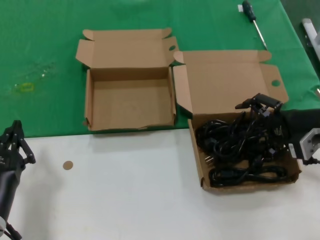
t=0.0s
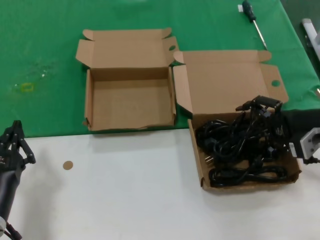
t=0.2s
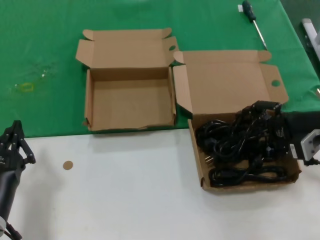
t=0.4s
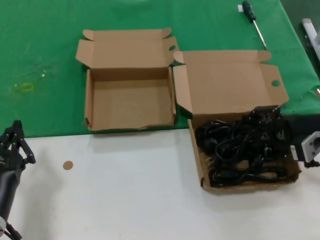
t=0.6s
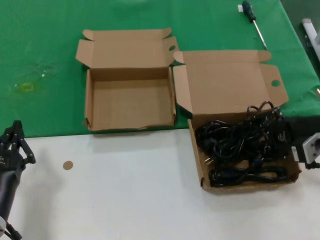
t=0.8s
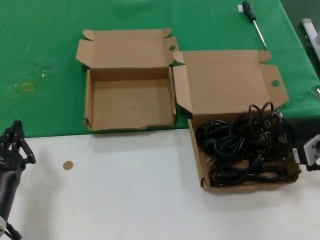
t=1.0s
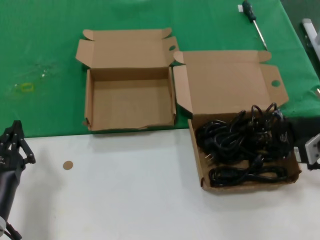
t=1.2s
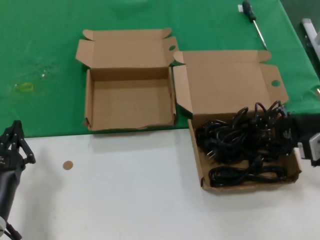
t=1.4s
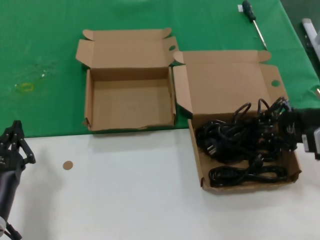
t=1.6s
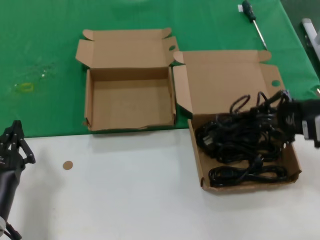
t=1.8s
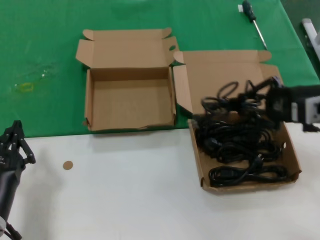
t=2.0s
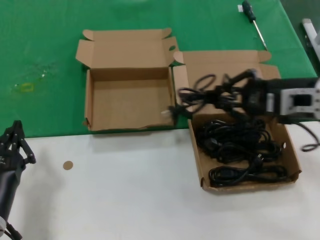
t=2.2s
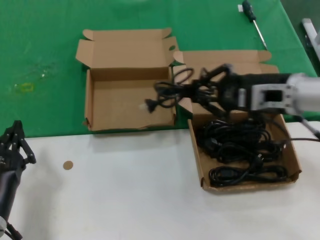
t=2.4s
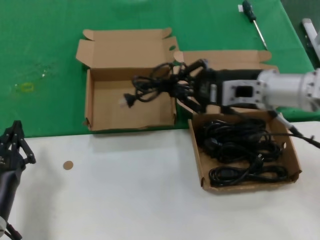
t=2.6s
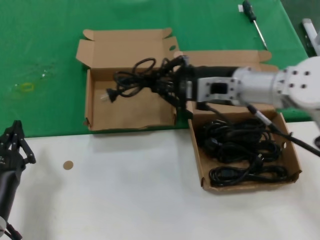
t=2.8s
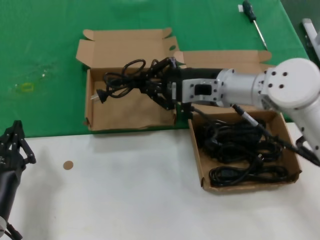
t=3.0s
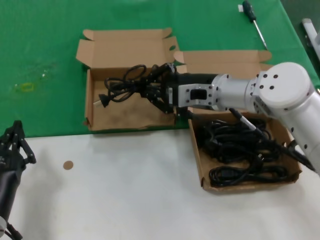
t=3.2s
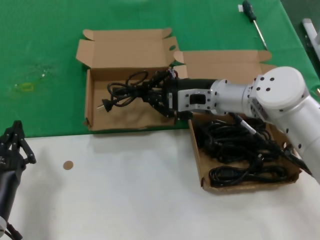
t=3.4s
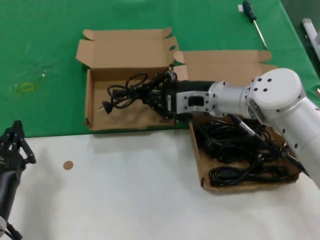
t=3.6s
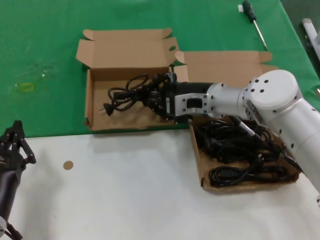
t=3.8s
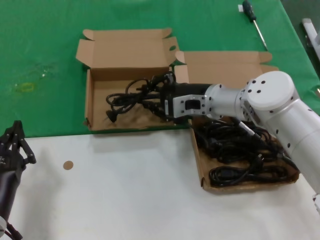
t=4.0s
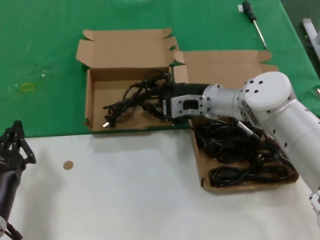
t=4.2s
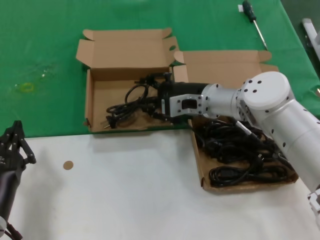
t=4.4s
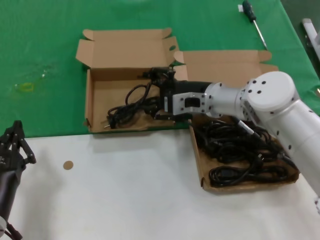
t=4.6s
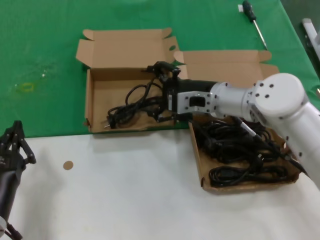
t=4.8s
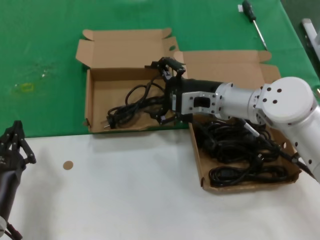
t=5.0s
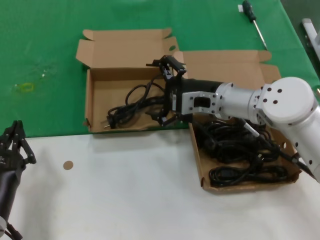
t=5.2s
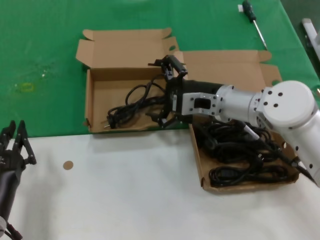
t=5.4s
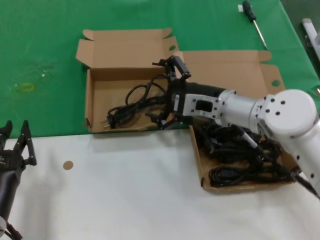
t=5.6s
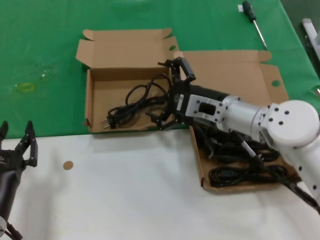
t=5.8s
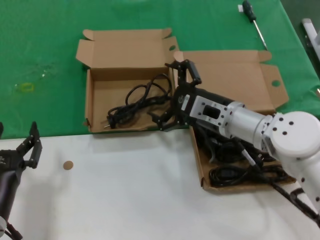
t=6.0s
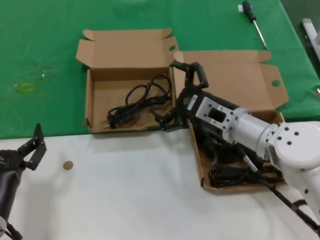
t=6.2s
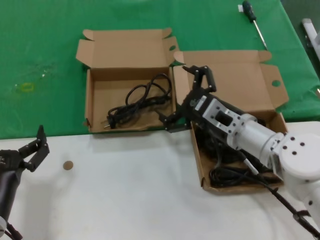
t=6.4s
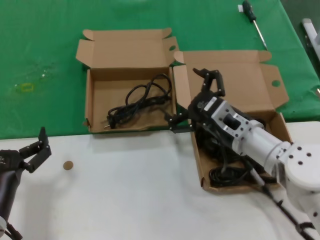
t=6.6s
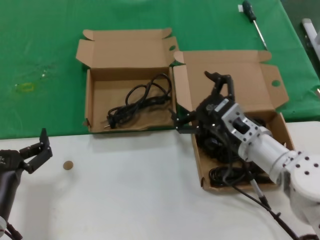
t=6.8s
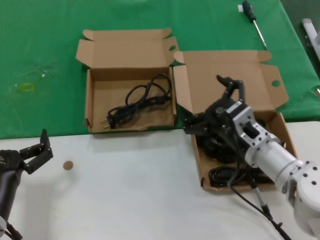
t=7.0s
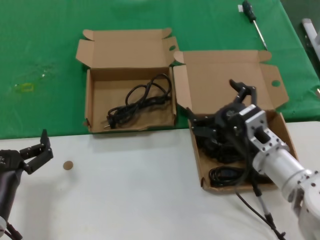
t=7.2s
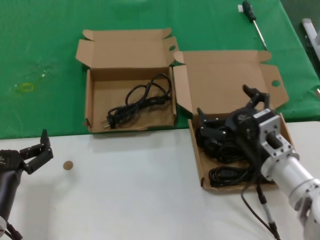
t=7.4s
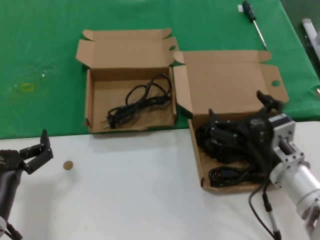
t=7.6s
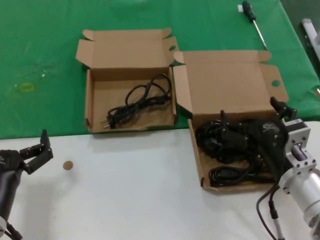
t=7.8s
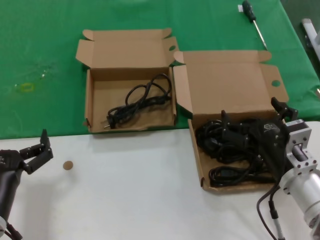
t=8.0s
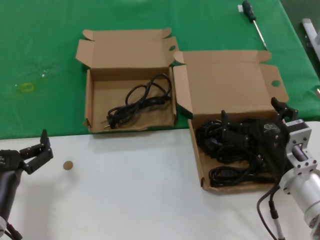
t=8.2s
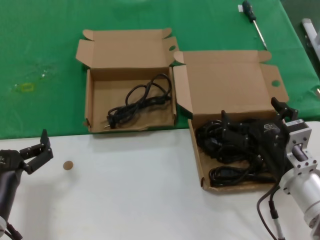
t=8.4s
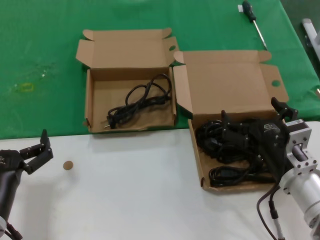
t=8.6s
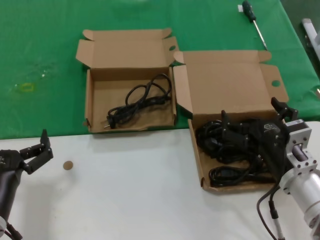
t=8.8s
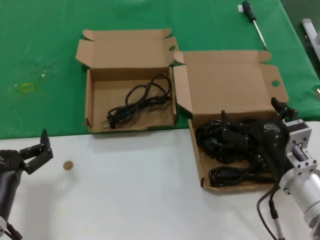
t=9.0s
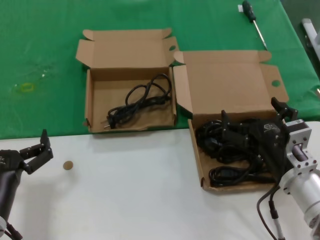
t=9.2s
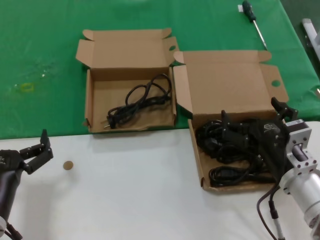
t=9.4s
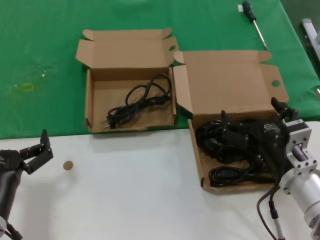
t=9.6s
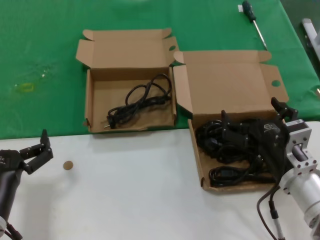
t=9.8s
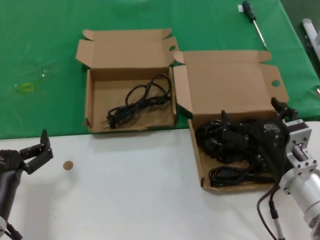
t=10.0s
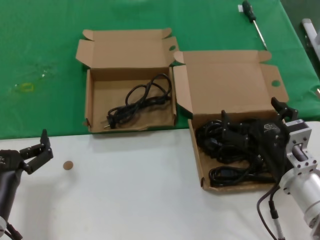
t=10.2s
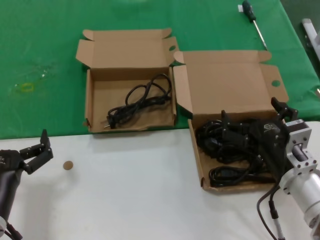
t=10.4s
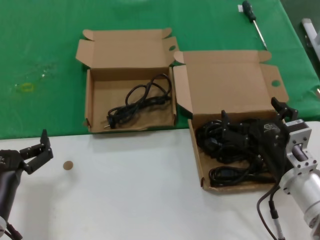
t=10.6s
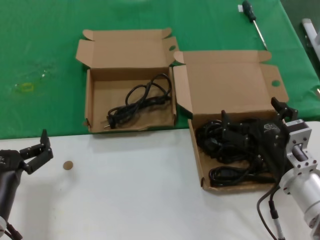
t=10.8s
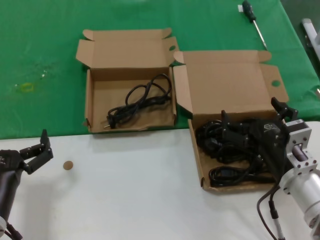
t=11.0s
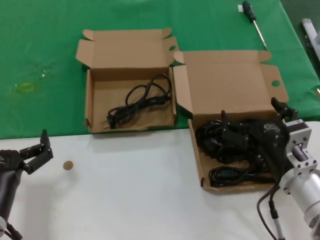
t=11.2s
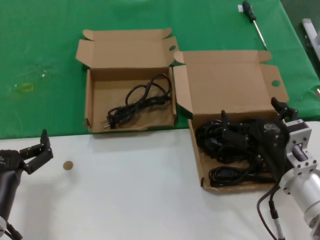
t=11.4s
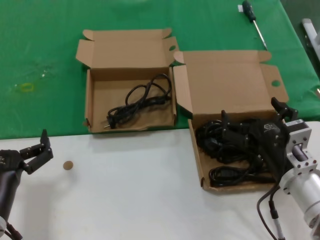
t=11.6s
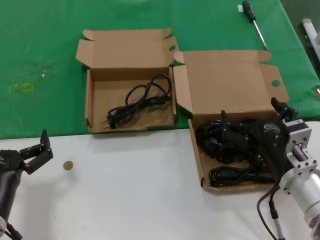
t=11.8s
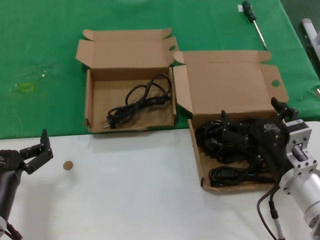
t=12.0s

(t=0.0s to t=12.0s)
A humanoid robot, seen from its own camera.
Task of the whole recording: take the parts from the box containing them and put them into an empty box.
Step, t=1.4s - t=4.4s: Place the data cable in the another box.
t=0.0s - t=1.6s: There are only small adjustments of the hands.
t=1.6s - t=3.0s: The right hand is displaced to the left and forward by about 25 cm.
t=3.0s - t=4.4s: The right hand heads downward, covering about 5 cm.
t=4.4s - t=6.0s: The right hand shifts about 5 cm backward.
t=6.0s - t=7.6s: The right hand goes approximately 15 cm backward, downward and to the right.
t=7.6s - t=9.0s: The hands make only small movements.
t=9.0s - t=12.0s: Neither hand changes place.

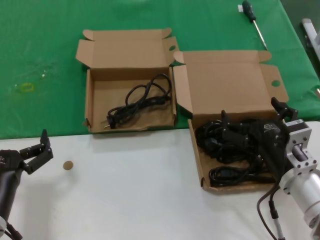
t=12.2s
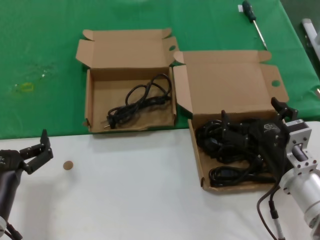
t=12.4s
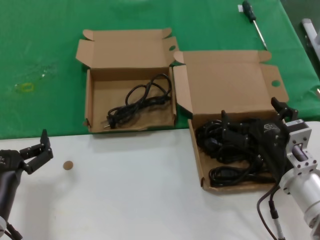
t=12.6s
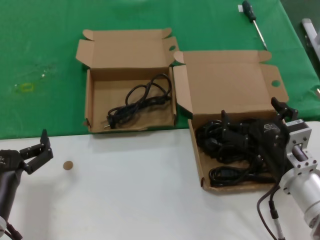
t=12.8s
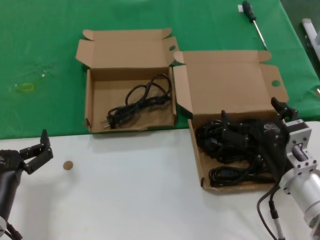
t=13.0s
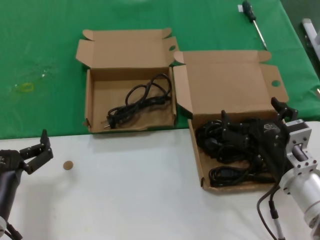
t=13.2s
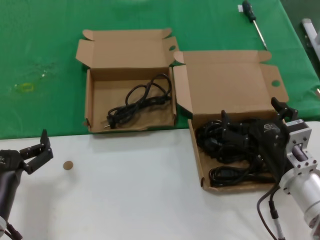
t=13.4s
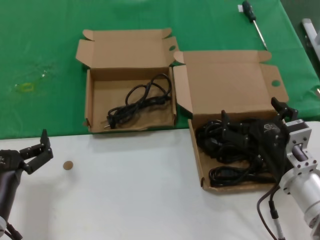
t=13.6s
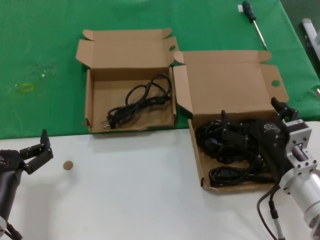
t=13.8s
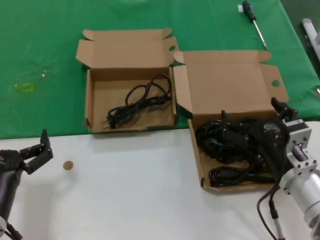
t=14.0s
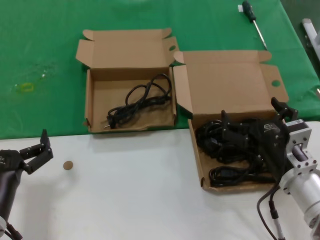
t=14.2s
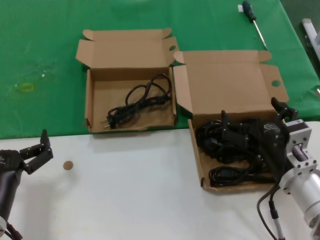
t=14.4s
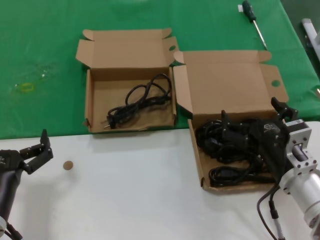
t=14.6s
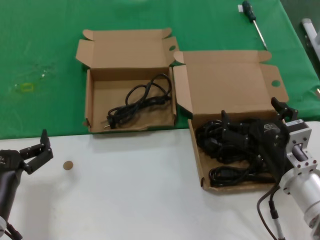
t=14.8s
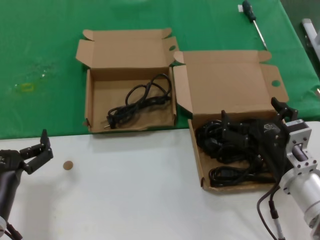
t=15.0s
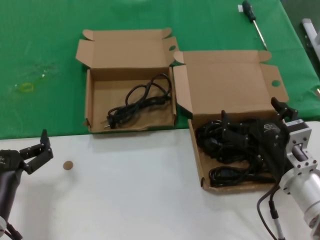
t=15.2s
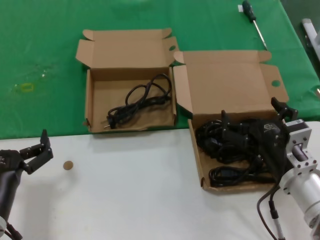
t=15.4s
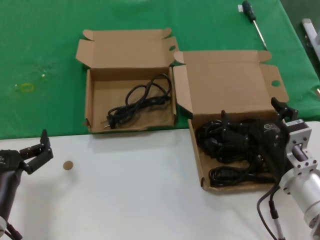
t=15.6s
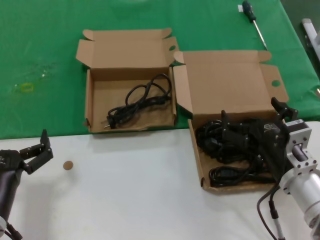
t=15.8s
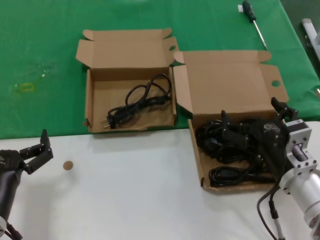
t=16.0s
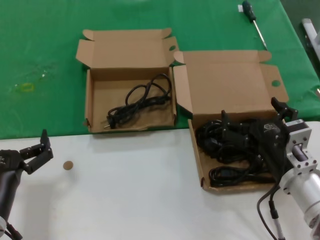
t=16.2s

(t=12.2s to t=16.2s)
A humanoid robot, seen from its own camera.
Task of the whole recording: take the parts from the box containing them and put them into an empty box.
t=12.2s - t=16.2s: Both hands stay put.

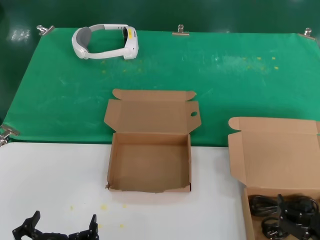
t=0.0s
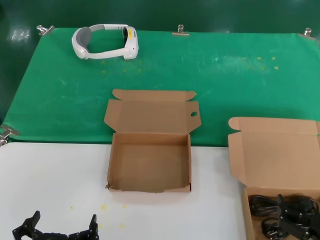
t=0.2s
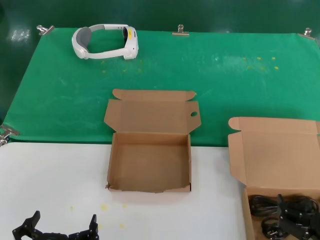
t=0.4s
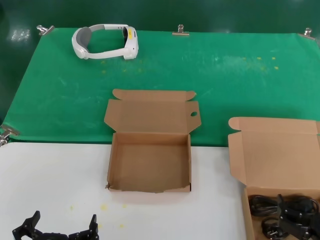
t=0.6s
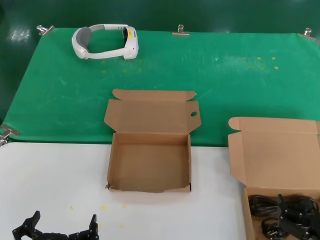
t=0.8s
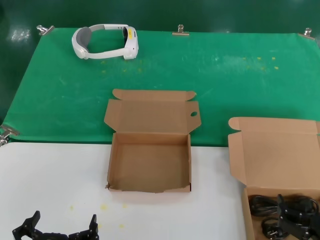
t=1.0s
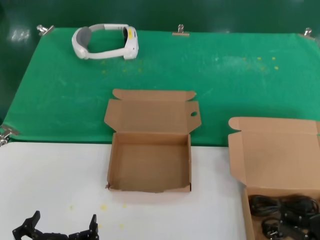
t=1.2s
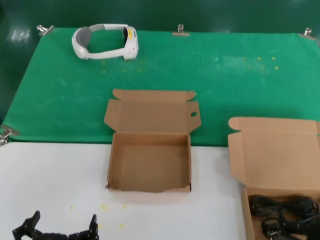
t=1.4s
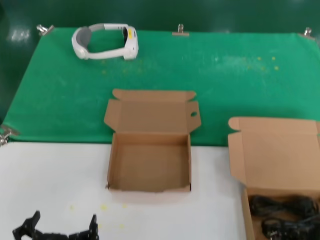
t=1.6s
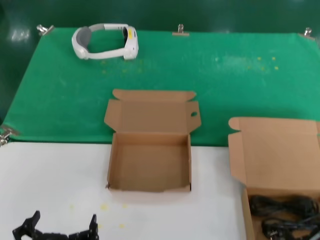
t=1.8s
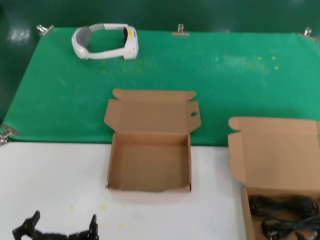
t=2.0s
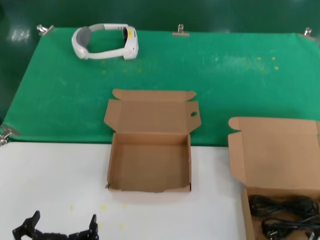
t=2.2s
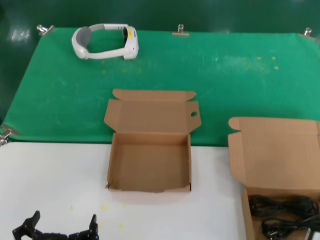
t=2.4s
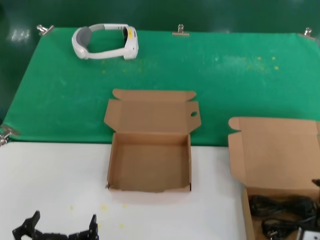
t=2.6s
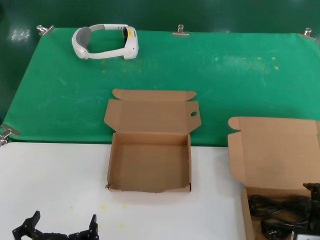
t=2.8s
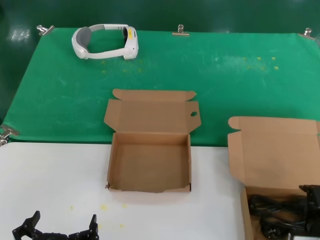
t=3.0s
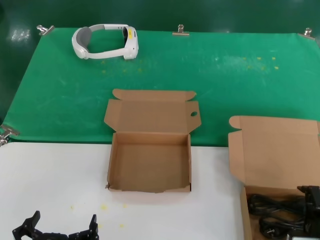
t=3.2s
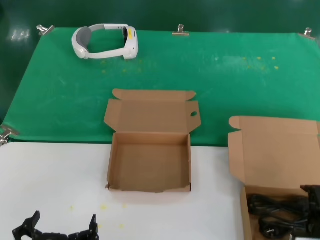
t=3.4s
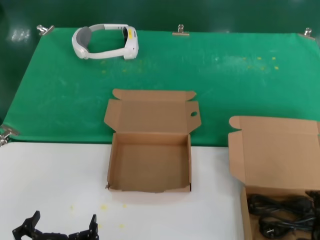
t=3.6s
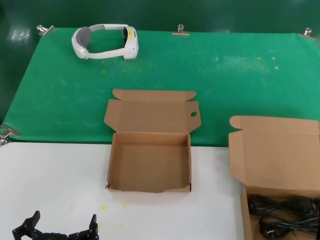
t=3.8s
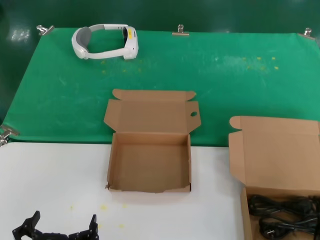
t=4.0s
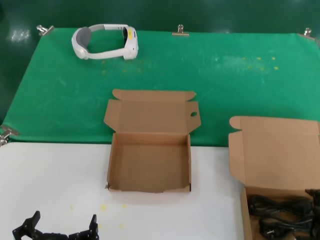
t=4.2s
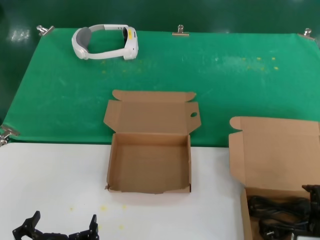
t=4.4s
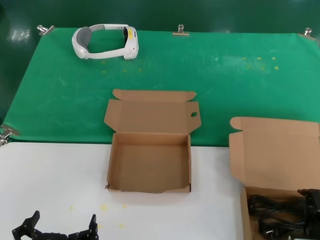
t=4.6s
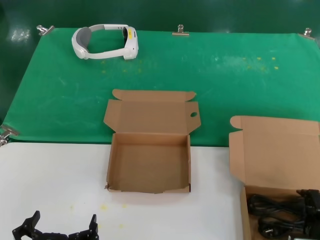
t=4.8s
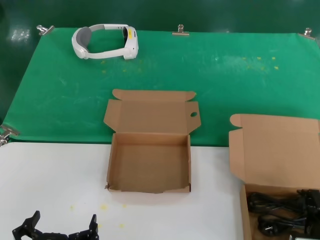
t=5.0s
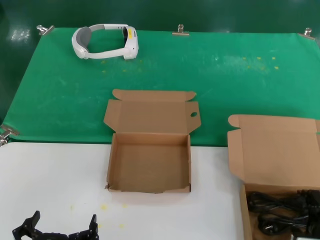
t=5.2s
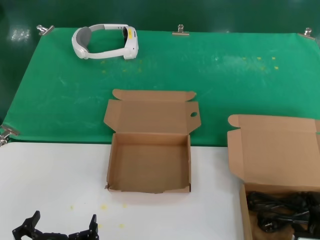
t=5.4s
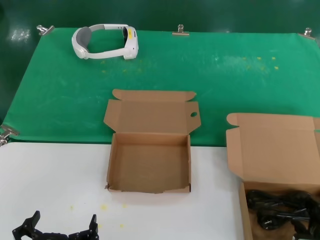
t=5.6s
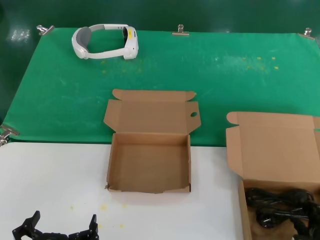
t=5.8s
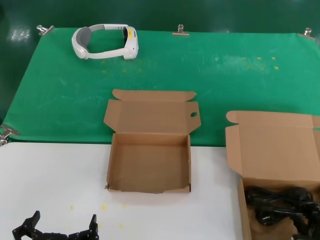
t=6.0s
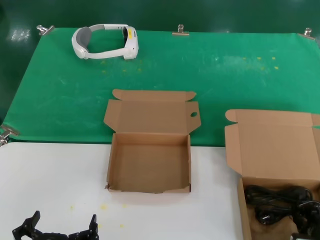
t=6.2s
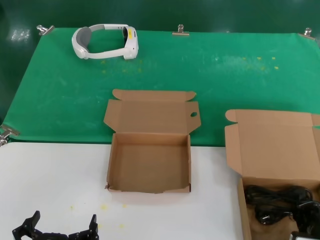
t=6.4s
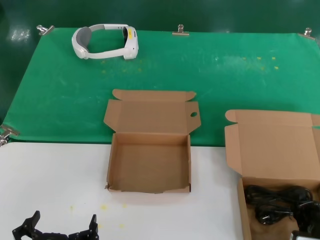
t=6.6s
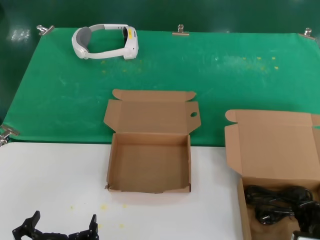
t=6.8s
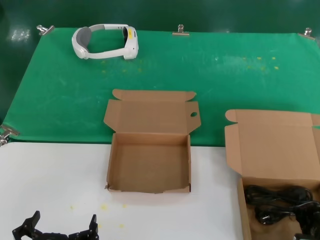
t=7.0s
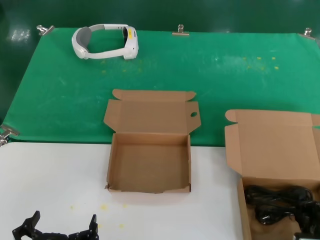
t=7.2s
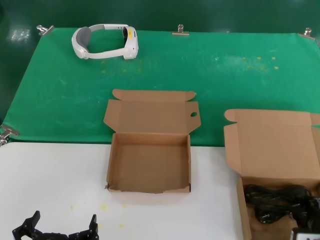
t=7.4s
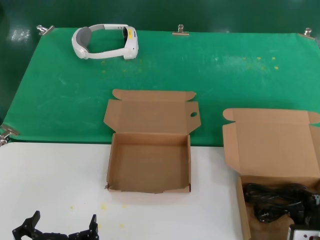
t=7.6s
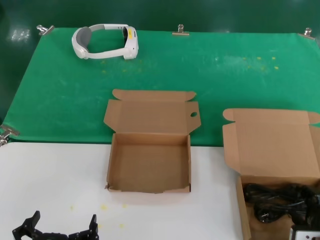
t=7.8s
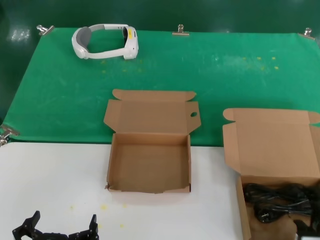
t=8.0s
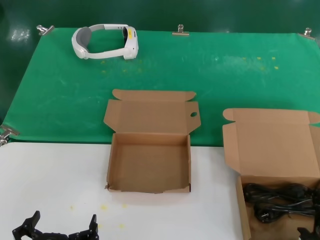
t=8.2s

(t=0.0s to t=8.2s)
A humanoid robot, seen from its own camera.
Task of the whole recording: take the parts from the box containing them and put them into an empty box.
t=1.6s - t=3.2s: The right hand travels forward by about 10 cm.
t=3.2s - t=8.2s: The hands move only a little.
